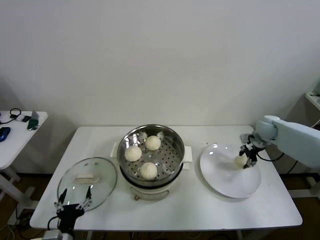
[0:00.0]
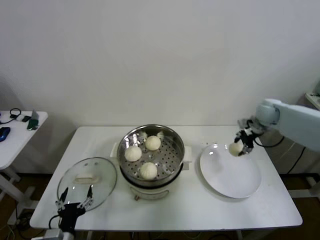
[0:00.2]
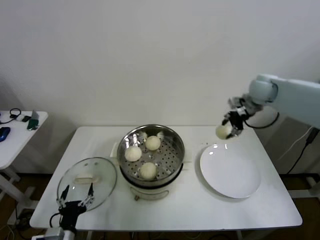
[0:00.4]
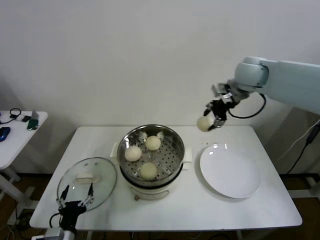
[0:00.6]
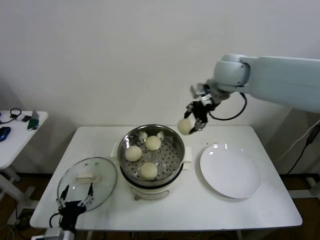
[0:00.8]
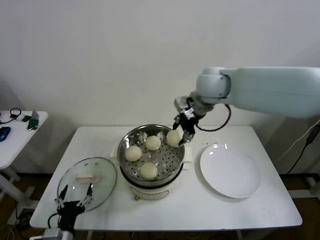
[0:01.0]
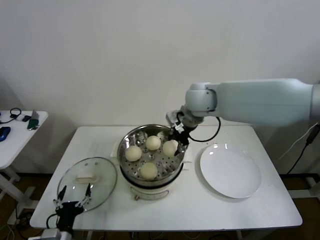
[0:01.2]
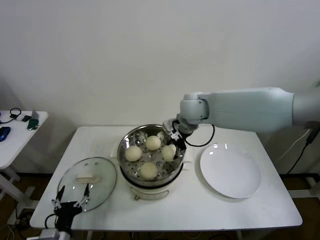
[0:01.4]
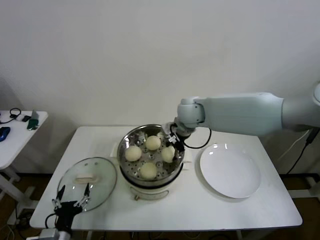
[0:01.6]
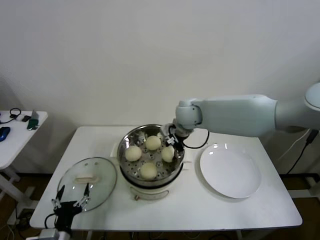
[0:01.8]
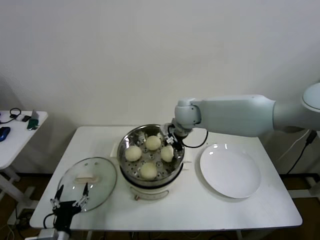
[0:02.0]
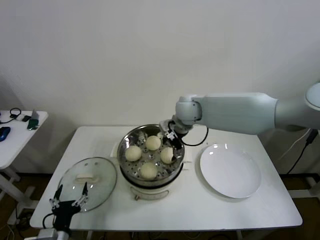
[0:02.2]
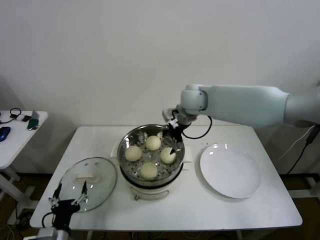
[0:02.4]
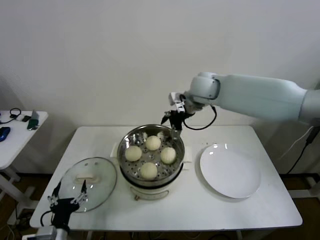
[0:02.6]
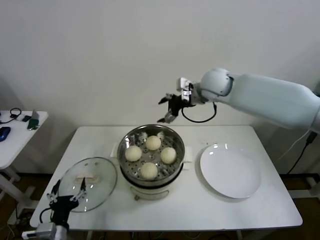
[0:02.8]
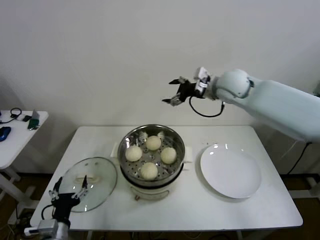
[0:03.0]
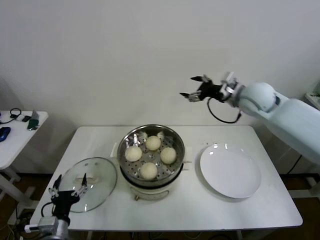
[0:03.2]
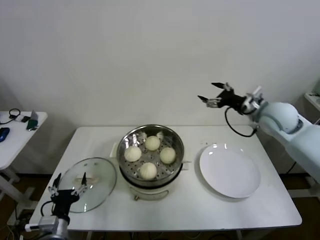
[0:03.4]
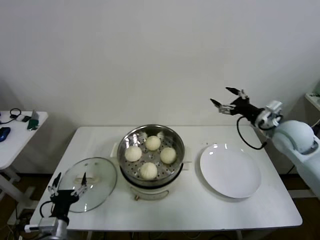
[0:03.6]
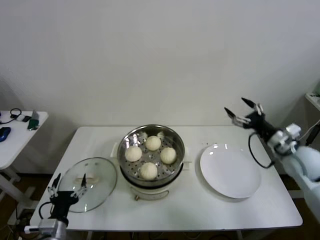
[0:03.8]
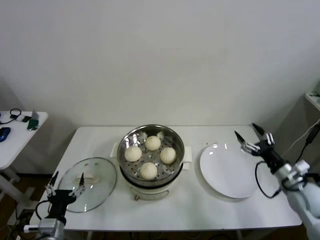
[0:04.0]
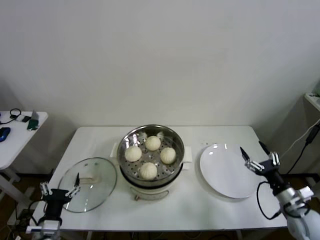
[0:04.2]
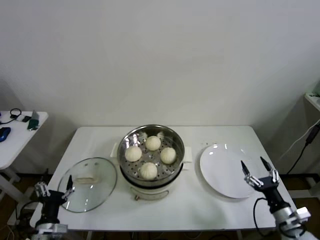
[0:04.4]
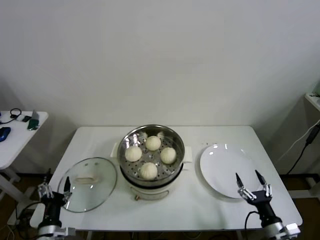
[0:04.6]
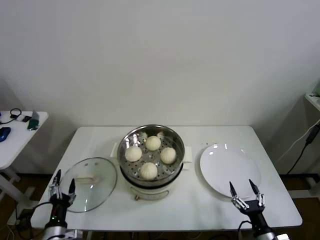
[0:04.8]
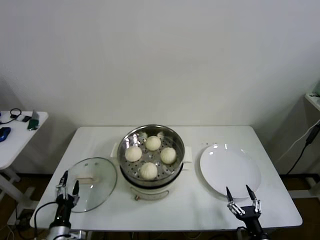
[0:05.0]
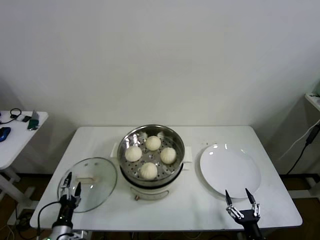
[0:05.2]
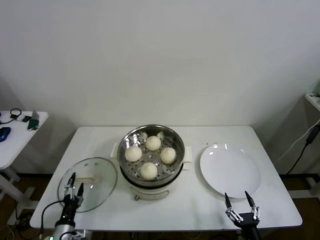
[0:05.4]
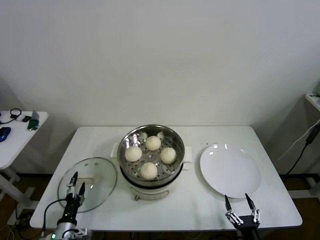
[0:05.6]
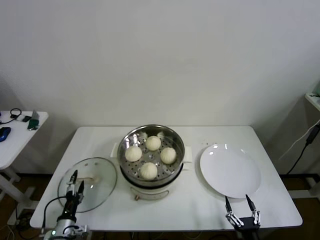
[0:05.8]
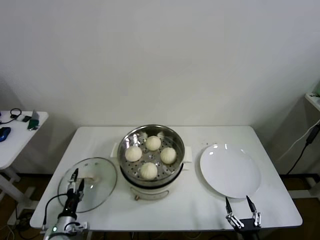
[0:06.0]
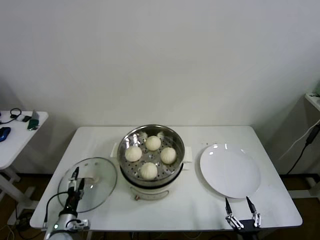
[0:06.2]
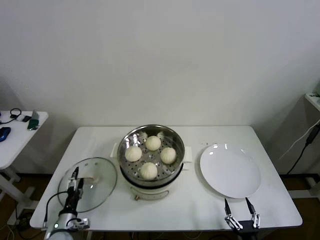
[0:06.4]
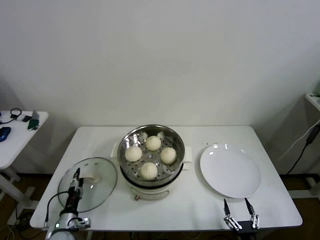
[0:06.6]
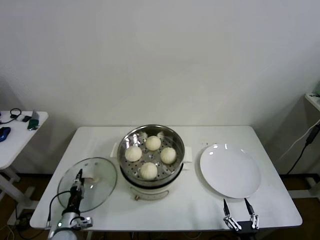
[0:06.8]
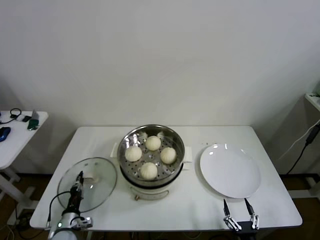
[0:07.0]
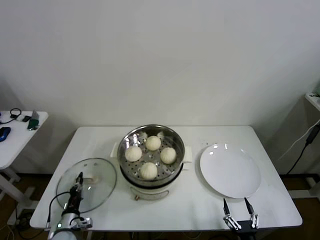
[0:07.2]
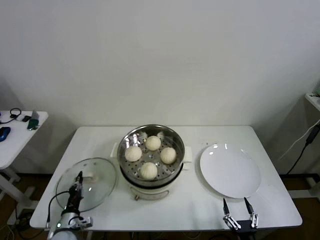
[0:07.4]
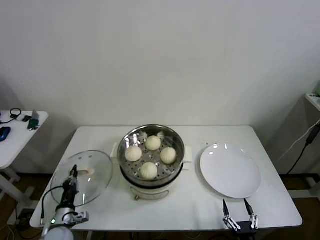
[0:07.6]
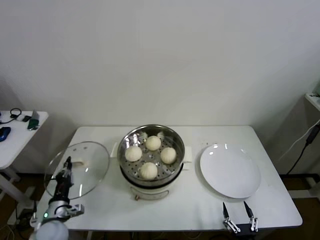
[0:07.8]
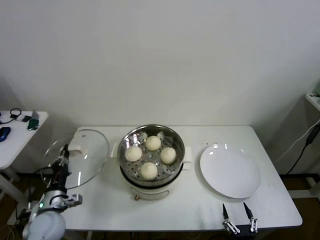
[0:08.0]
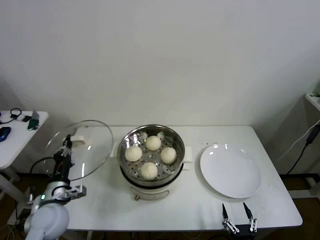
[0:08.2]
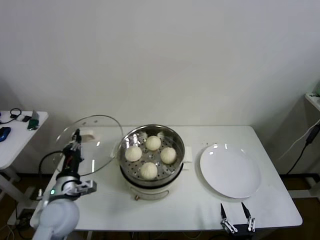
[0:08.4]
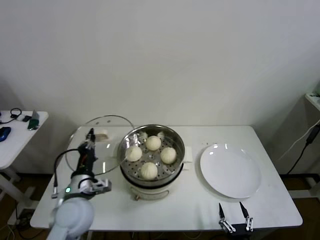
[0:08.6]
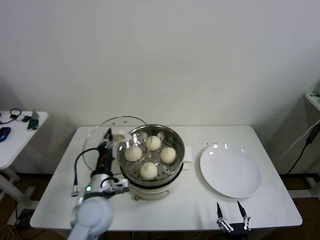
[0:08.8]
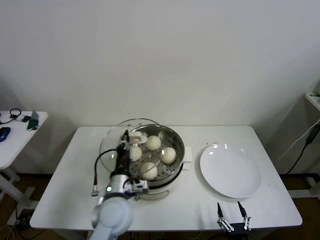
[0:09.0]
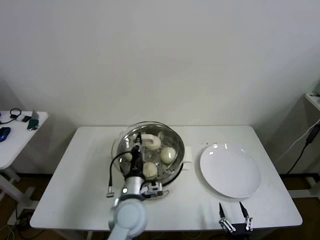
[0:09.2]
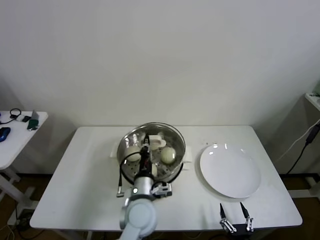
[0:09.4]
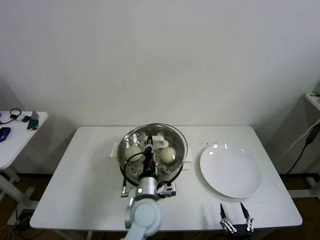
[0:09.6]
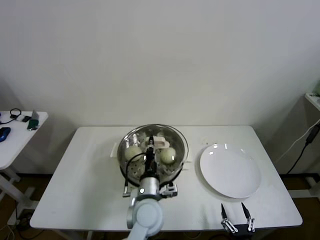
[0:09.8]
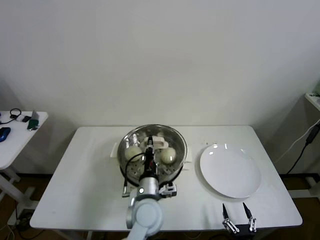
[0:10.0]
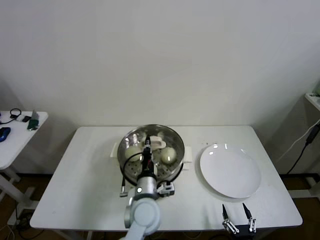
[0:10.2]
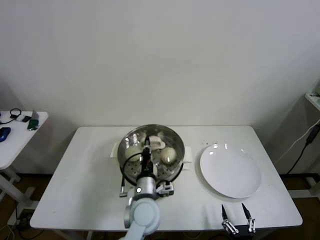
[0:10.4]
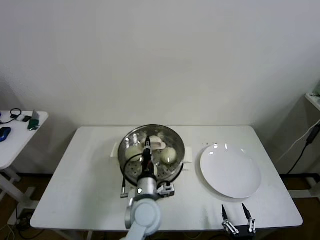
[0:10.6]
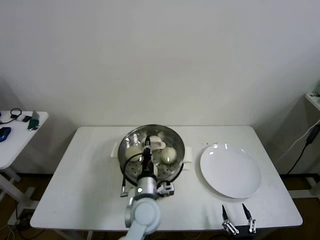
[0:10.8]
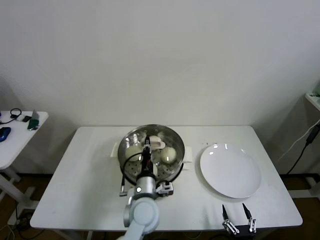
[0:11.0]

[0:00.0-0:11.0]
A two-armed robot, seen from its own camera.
Step, 0:00.0 to 0:02.0: Place the baozi on the steamer with right gripper.
Step, 0:02.2 to 0:07.0: Grasp the pot lid with left gripper.
Step, 0:07.2 to 0:10.4: Place the pot lid on the steamer with left gripper.
0:00.0 to 0:01.6: The right gripper shifts roughly 30 cm to the left.
0:01.6 to 0:03.2: The right gripper heads to the right, covering some 20 cm, and opens.
0:03.2 to 0:04.8: The left gripper goes some 5 cm downward. Meanwhile the right gripper goes some 50 cm downward and backward.
0:04.8 to 0:06.2: The right gripper travels backward by some 5 cm. The left gripper is displaced downward and forward by some 10 cm.
0:06.2 to 0:07.8: The left gripper moves upward, some 5 cm, and closes its fingers.
0:07.8 to 0:09.4: The left gripper goes about 30 cm to the right and upward.
0:09.4 to 0:11.0: There are only small adjustments of the grippers.

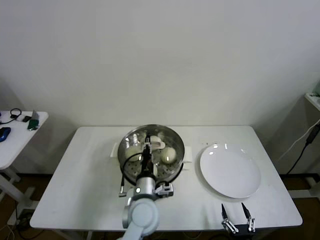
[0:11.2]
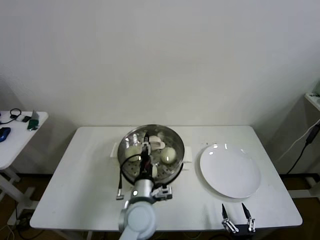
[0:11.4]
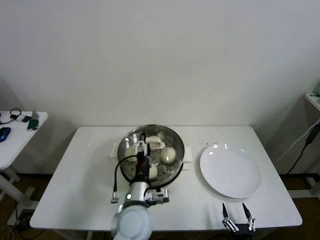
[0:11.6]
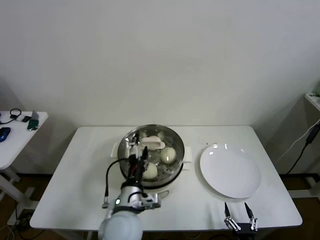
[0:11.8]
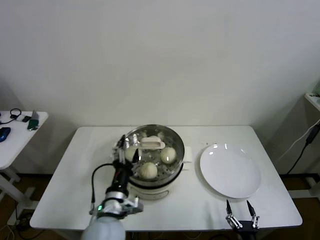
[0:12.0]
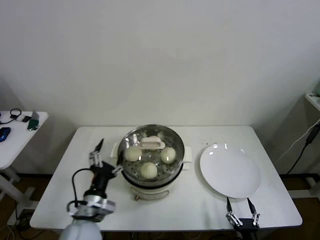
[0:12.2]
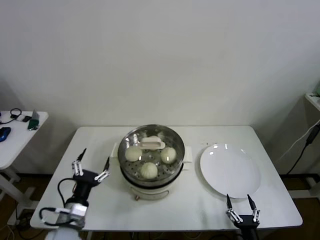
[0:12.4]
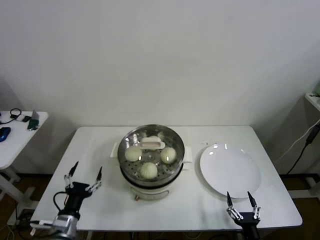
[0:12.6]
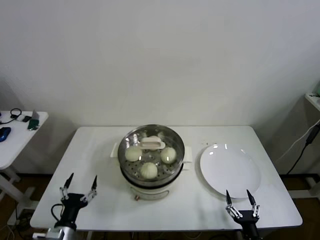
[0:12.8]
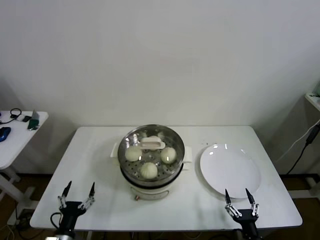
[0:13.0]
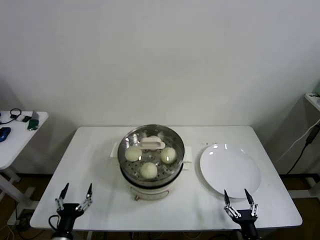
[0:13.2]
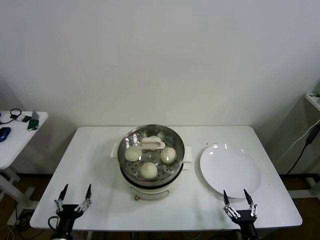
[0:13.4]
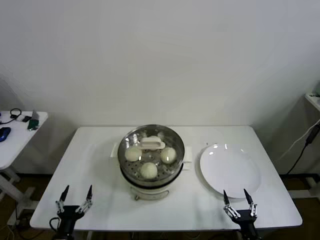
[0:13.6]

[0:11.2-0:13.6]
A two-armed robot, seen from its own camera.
0:11.2 to 0:12.4: The left gripper travels to the left by about 20 cm, and opens its fingers.
0:12.4 to 0:13.6: The left gripper goes about 15 cm downward, to the left and backward.

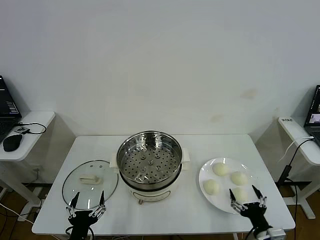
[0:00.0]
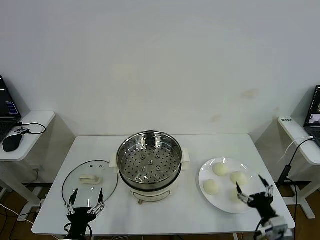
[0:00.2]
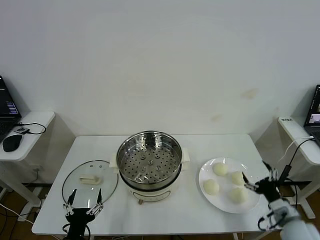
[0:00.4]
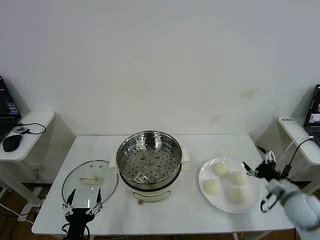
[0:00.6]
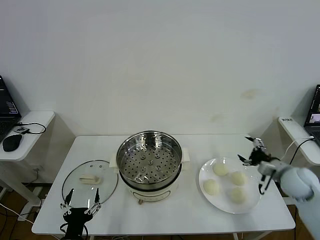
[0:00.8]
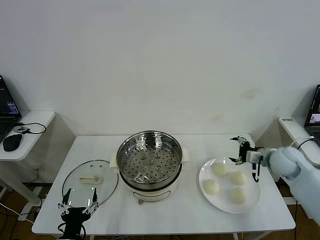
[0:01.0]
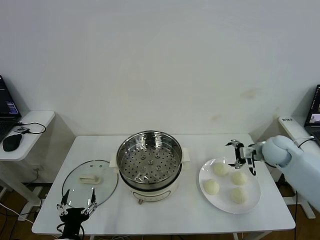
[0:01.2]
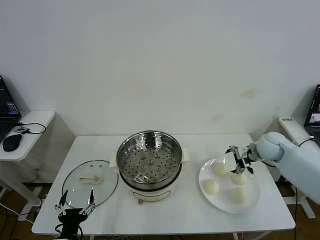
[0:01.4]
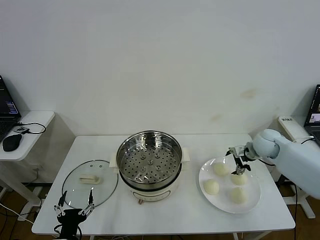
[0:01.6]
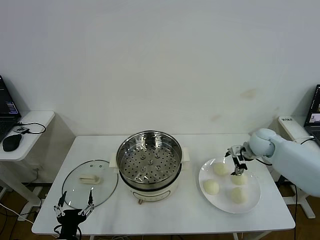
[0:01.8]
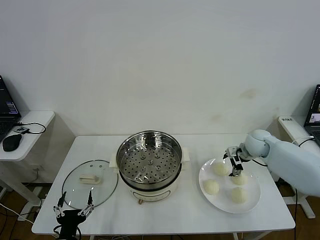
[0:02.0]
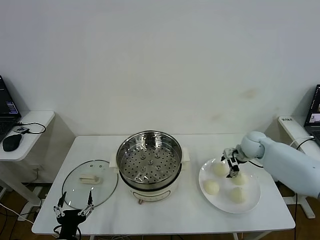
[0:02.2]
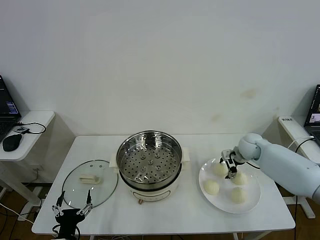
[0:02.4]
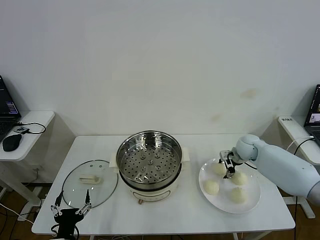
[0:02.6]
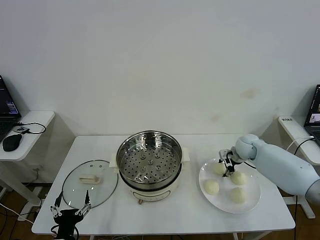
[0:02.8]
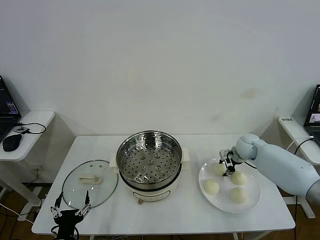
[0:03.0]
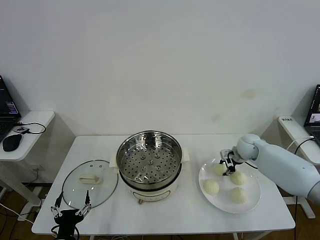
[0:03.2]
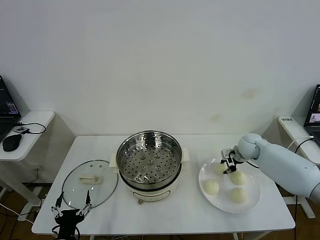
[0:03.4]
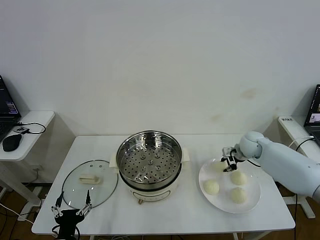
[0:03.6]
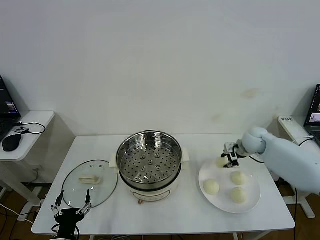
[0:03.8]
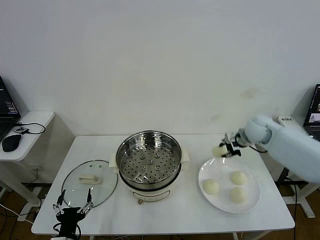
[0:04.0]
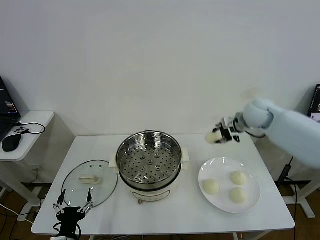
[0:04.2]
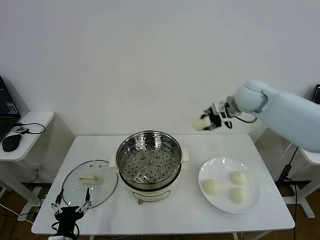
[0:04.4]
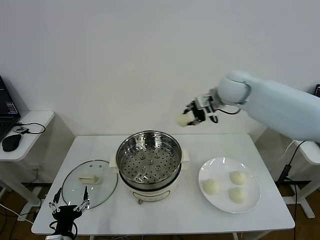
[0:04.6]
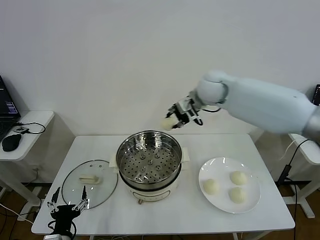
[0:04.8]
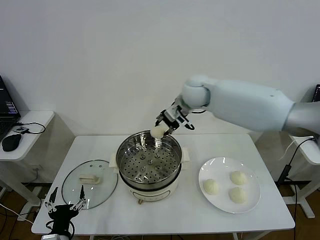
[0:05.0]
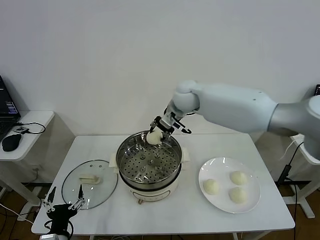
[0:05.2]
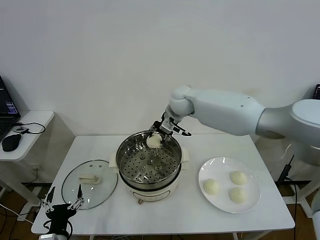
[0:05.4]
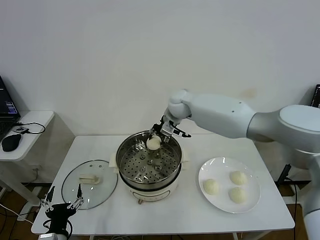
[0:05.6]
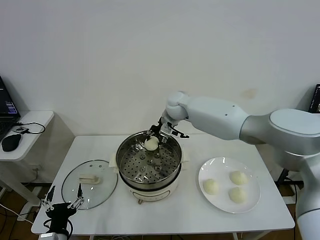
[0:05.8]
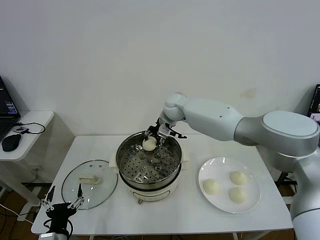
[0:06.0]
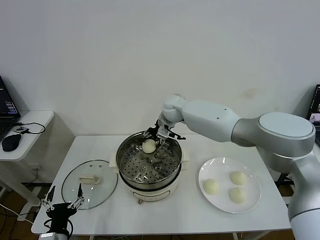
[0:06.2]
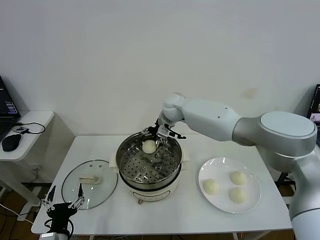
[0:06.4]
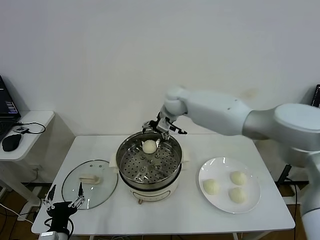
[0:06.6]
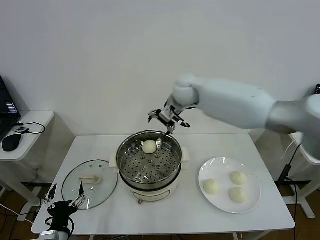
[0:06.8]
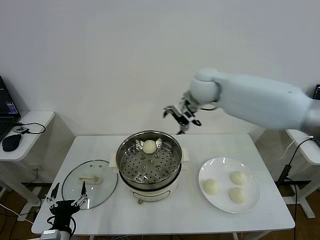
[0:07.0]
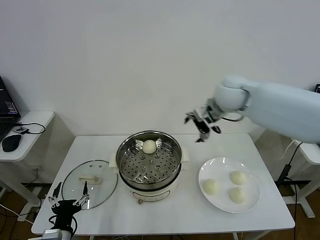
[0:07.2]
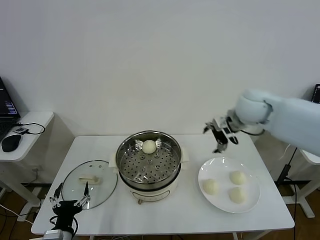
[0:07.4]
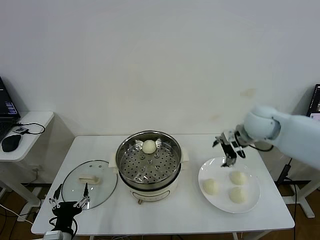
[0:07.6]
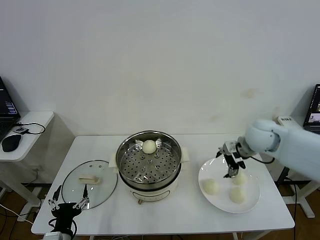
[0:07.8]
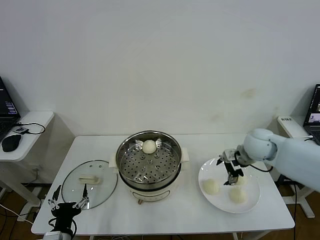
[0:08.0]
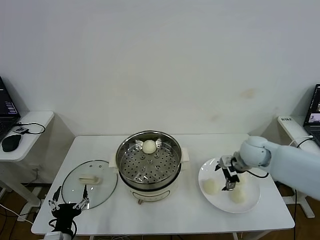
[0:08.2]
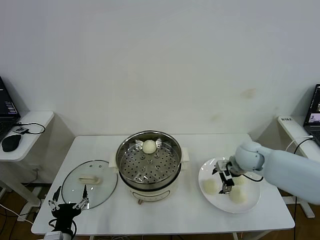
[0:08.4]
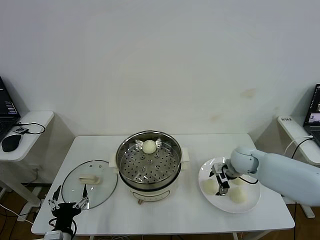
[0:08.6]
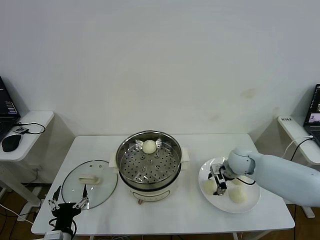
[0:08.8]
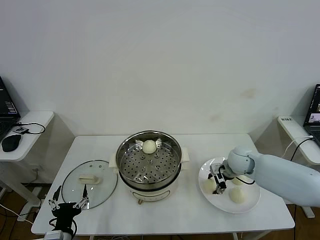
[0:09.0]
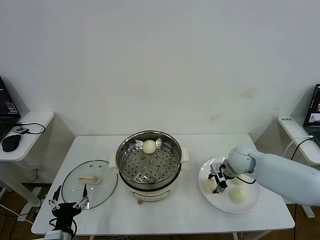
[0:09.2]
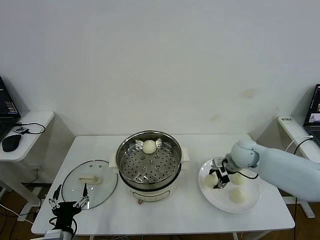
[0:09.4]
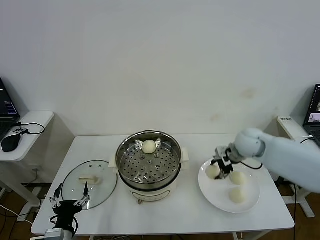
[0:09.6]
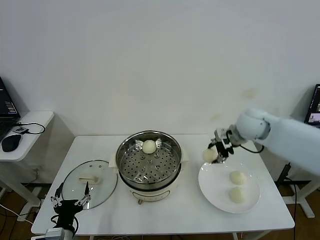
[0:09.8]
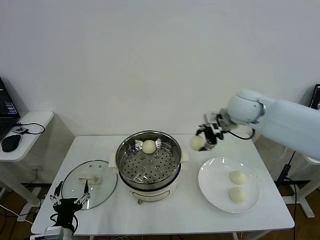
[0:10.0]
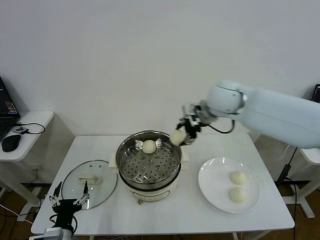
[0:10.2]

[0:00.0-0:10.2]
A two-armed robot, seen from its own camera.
Step, 0:00.0 to 0:03.4: Grasp the baozi in the plate with right gripper.
Step, 0:03.6 to 0:06.2: Place the baozi on the steamer with right gripper.
Step, 0:06.6 to 0:09.2: Grasp the baozi in the plate with right gripper.
0:01.4 to 0:03.0: The right gripper is displaced downward by some 5 cm, and closes.
0:03.0 to 0:04.4: The right gripper shifts roughly 25 cm upward and to the left.
0:04.4 to 0:05.8: The right gripper travels to the left and downward by approximately 20 cm.
0:05.8 to 0:07.2: The right gripper moves to the right, backward and upward, roughly 25 cm, and opens.
0:07.2 to 0:08.8: The right gripper is displaced downward by approximately 25 cm.
0:08.8 to 0:10.2: The right gripper is displaced upward and to the left by roughly 30 cm.
